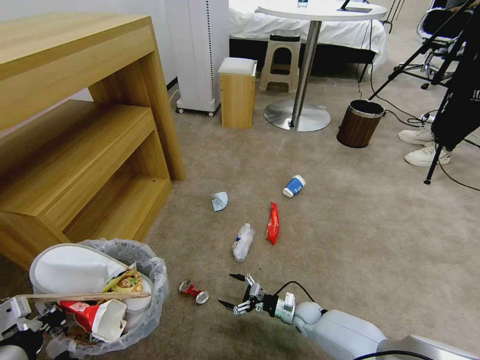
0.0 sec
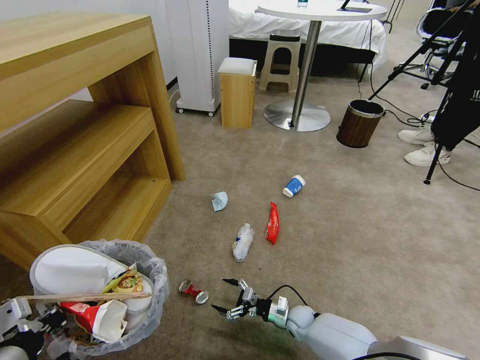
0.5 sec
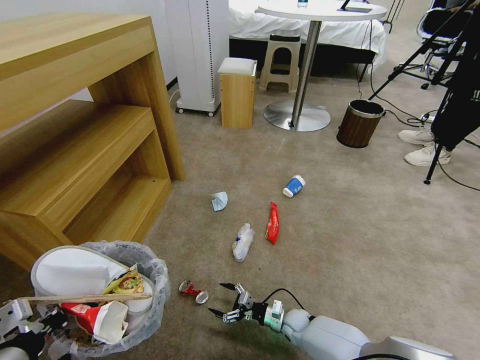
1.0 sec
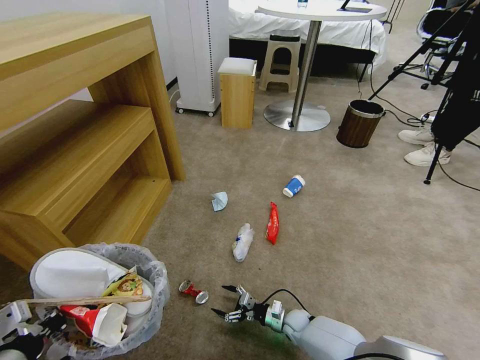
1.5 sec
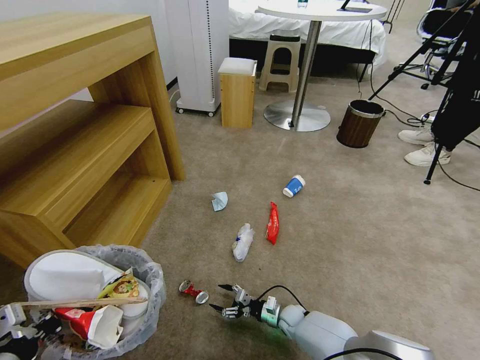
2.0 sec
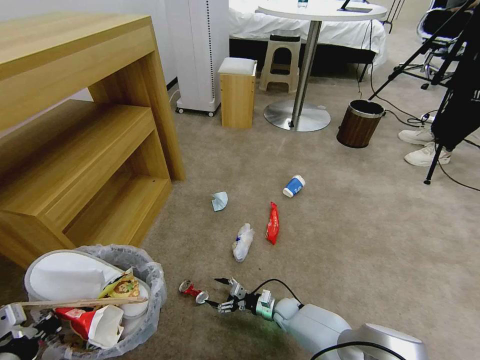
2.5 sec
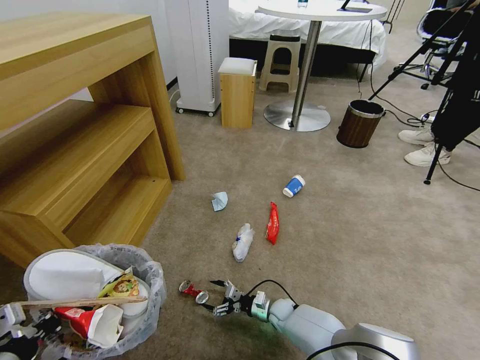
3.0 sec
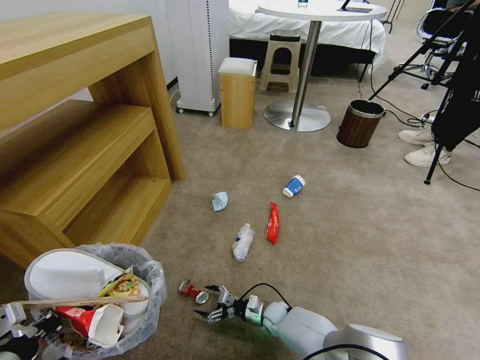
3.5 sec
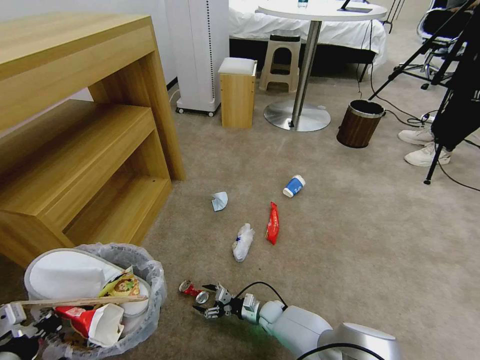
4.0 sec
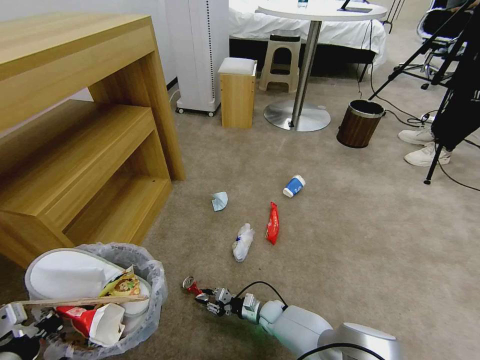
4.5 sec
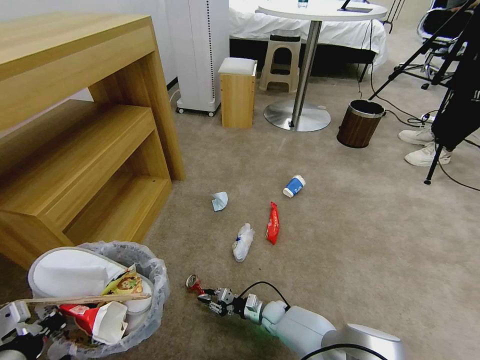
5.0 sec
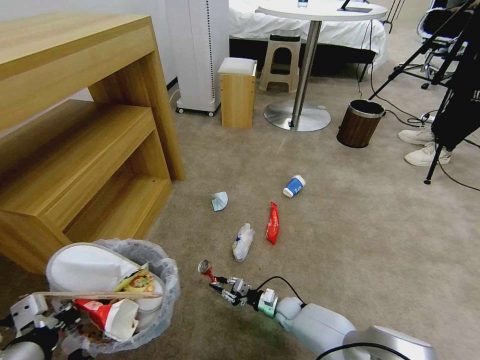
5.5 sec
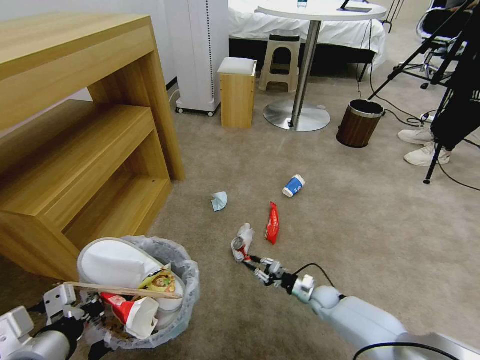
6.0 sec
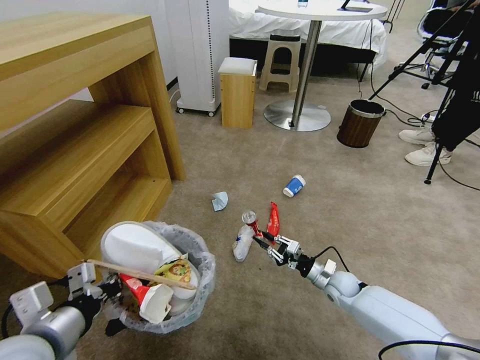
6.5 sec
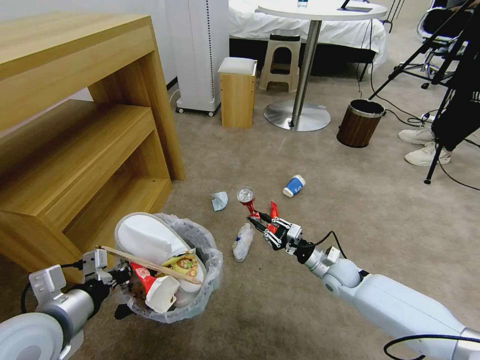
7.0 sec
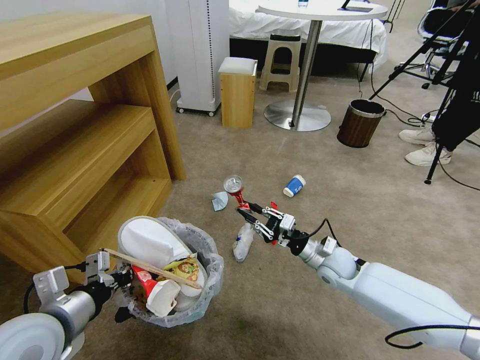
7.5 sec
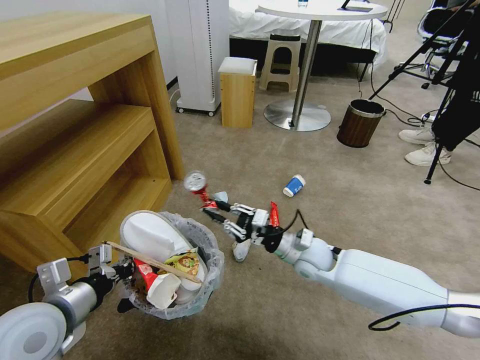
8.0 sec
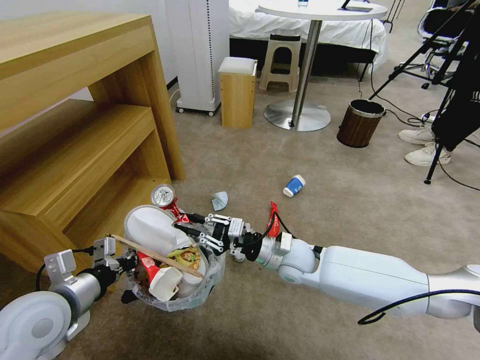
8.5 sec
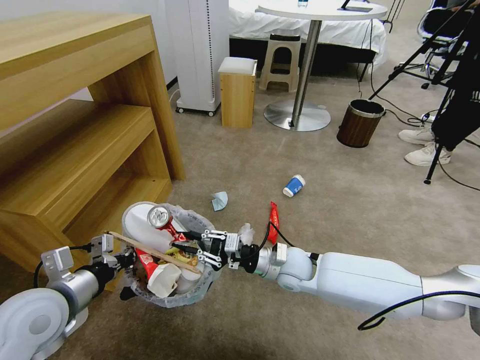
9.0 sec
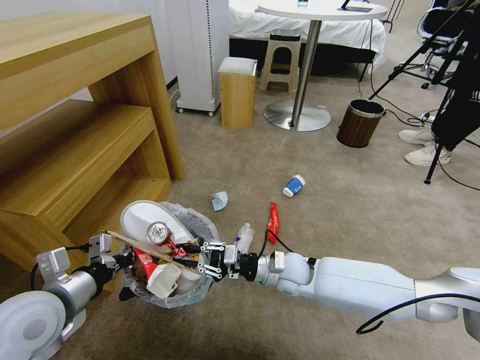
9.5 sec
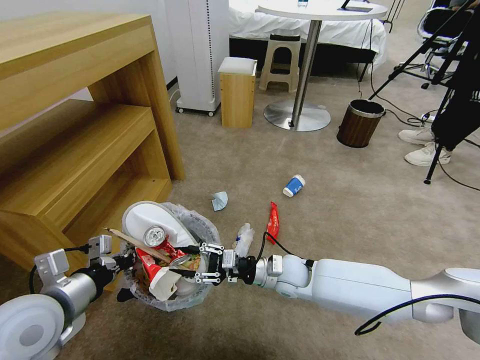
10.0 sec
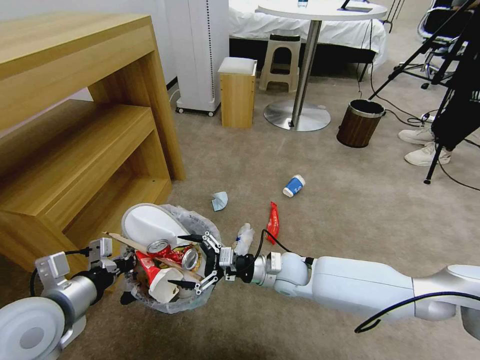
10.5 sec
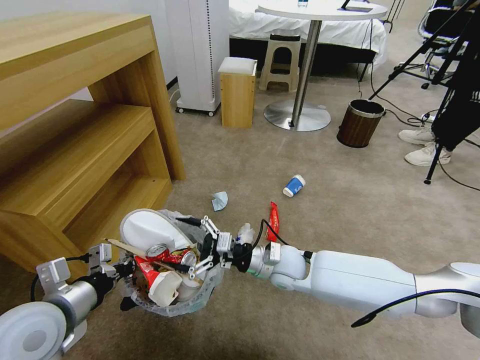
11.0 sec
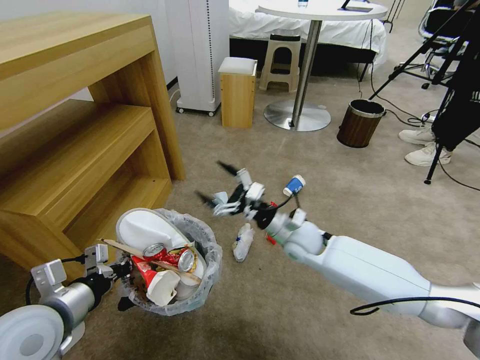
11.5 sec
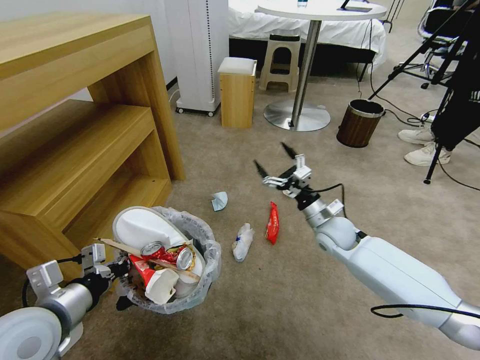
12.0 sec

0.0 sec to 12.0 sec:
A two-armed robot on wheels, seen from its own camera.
Task of the whole recording: Pick up the trash bin and place the garbage on the floor into it.
0.0 sec to 2.0 sec: The right gripper ends up some 5 cm from where it was.
2.0 sec to 4.0 sec: The right gripper is displaced to the left by roughly 5 cm.
4.0 sec to 6.0 sec: The right gripper heads to the right, covering some 15 cm, and closes.
6.0 sec to 8.0 sec: The left gripper moves forward, roughly 10 cm. The right gripper is displaced upward by about 25 cm.
8.0 sec to 10.0 sec: The right gripper shifts by approximately 5 cm.
10.0 sec to 12.0 sec: The right gripper is displaced to the right, forward and upward by some 15 cm, and opens.

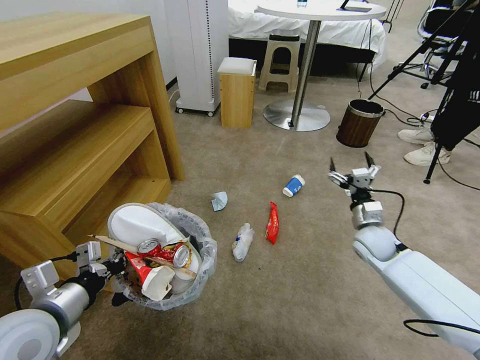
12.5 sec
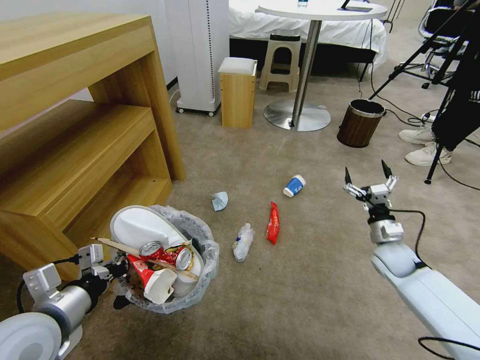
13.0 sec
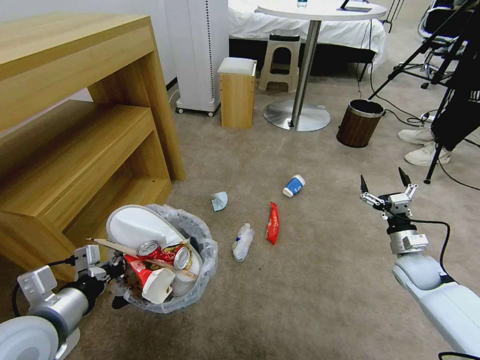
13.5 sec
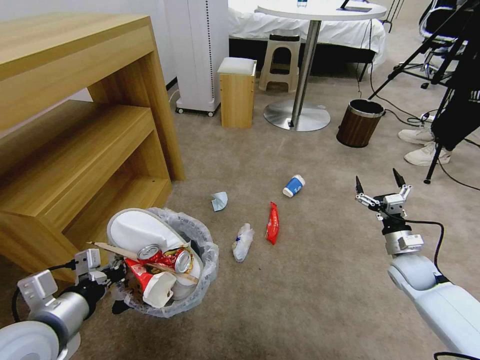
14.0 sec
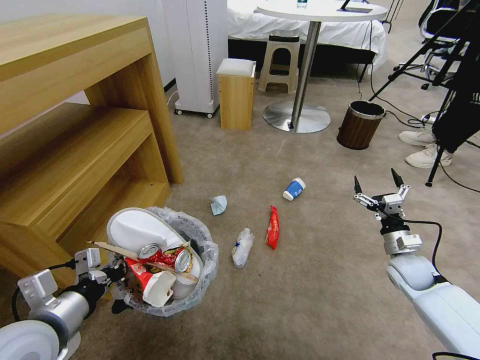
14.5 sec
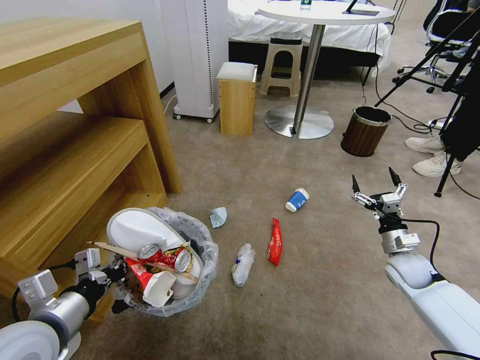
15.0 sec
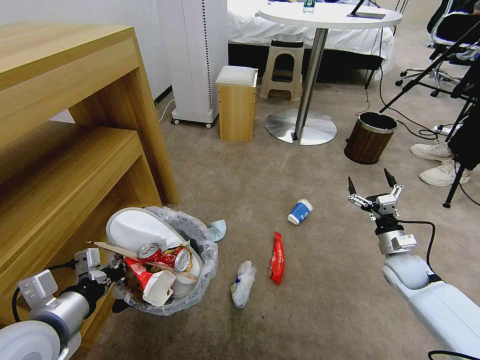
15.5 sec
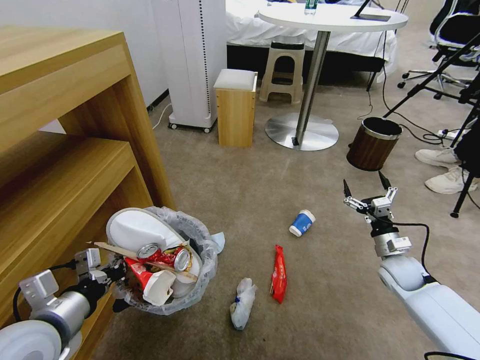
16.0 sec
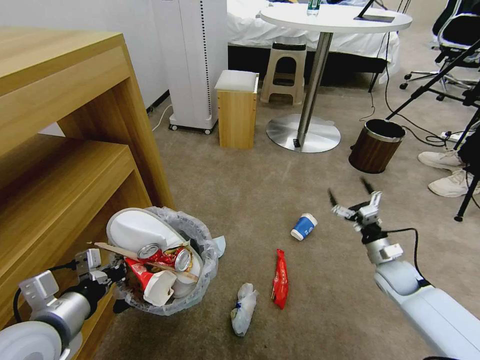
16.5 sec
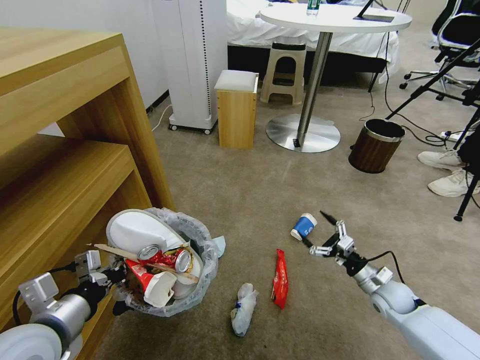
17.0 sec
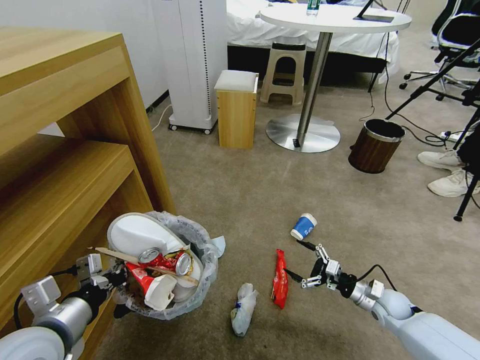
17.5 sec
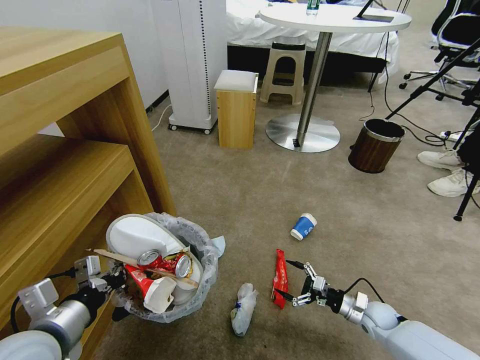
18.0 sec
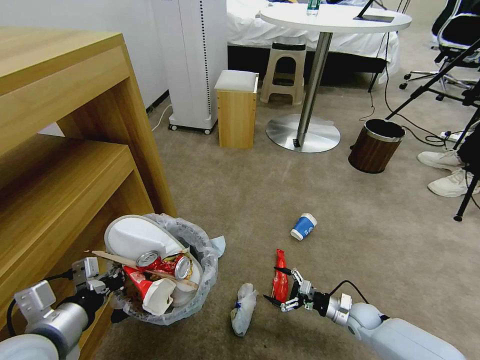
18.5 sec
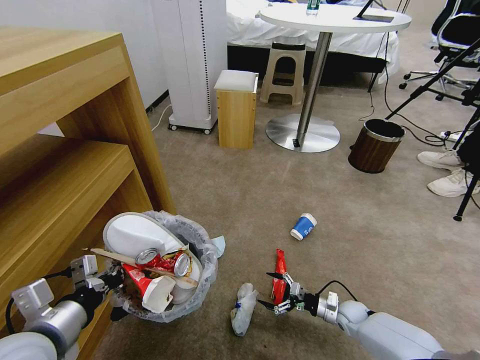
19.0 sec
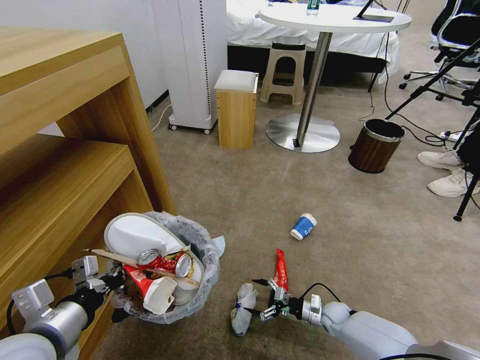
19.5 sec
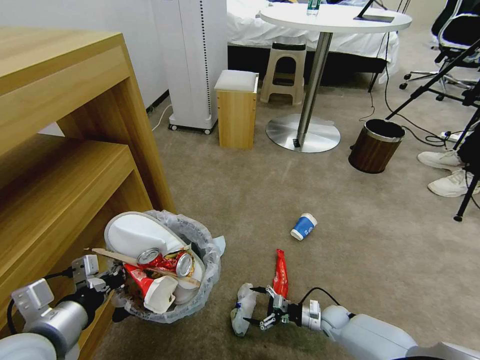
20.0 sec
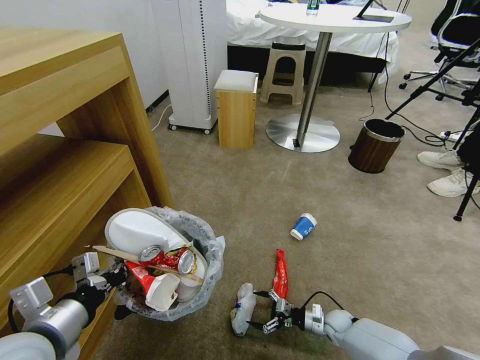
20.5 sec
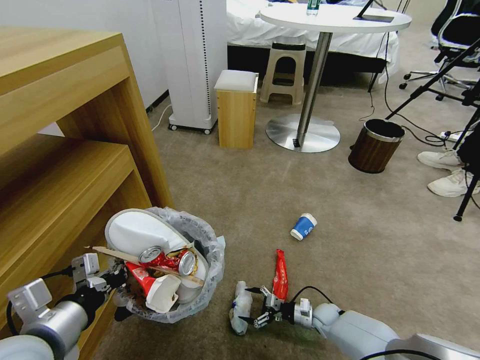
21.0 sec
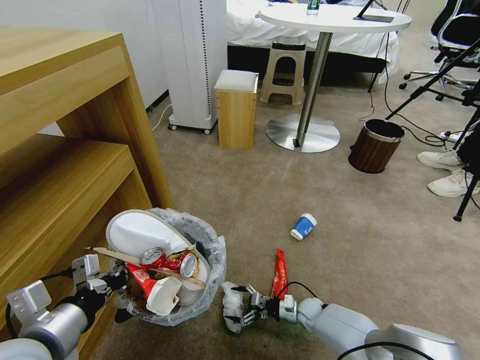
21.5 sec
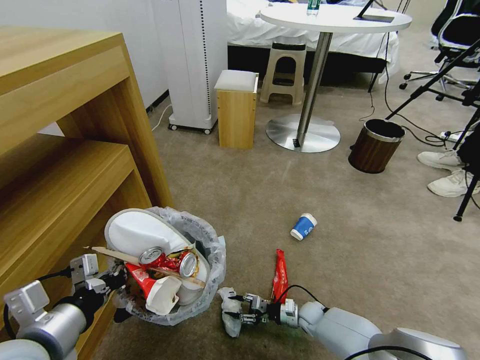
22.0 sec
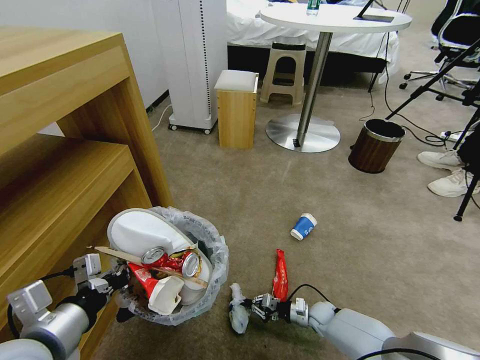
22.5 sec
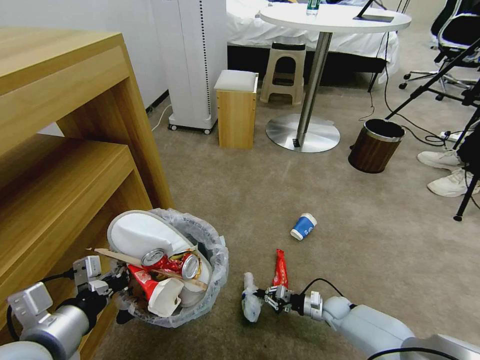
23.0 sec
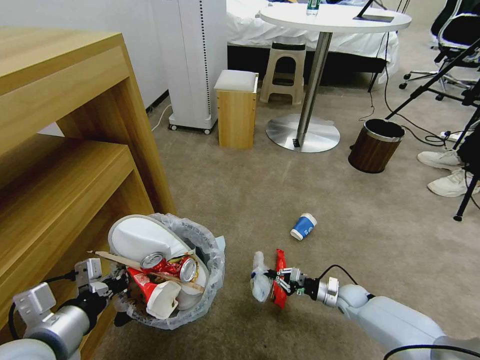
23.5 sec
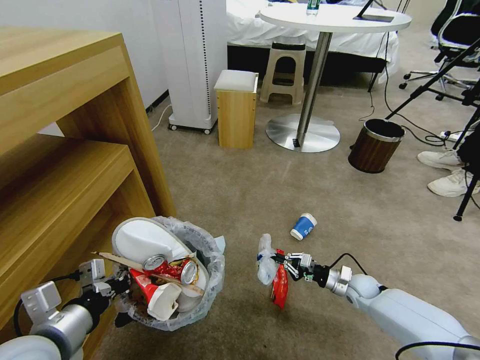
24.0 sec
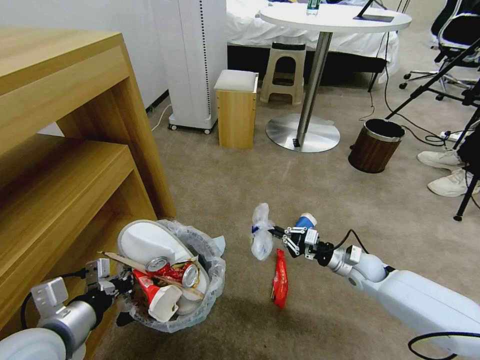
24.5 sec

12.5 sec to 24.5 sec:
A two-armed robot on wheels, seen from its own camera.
Task of the whole recording: Pick up the trash bin and place the garbage on the floor into it.
12.5 sec to 14.5 sec: The right gripper goes about 10 cm to the right and backward.
16.5 sec to 18.5 sec: The right gripper travels downward by some 15 cm.
18.5 sec to 20.5 sec: The right gripper heads downward, covering roughly 5 cm.
20.5 sec to 22.5 sec: The right gripper closes up.
22.5 sec to 24.5 sec: The right gripper goes approximately 20 cm upward.

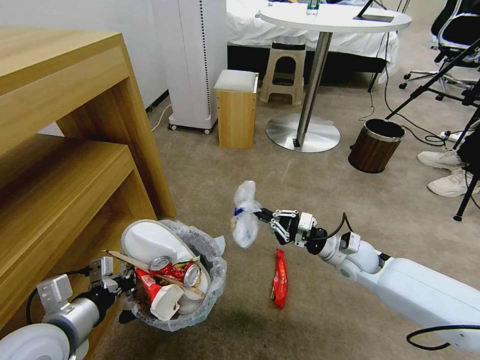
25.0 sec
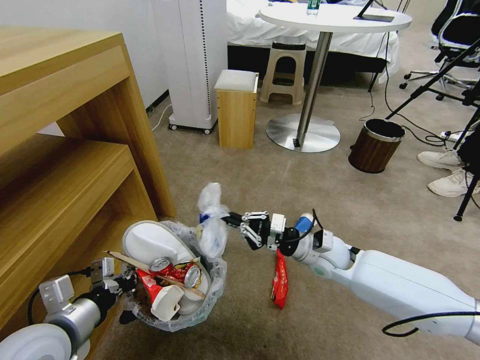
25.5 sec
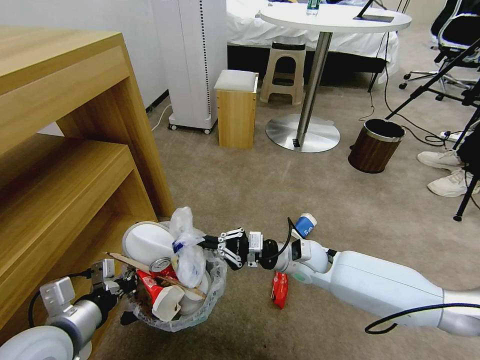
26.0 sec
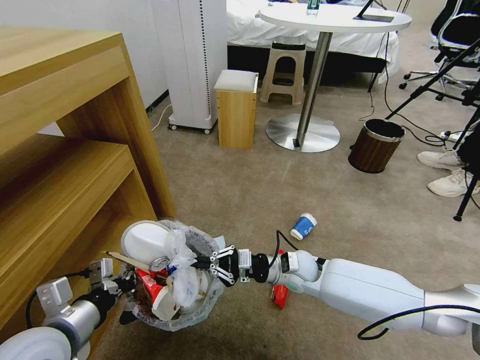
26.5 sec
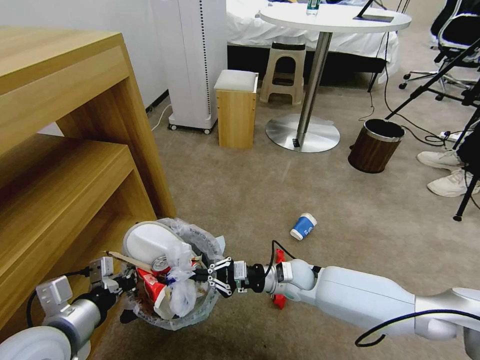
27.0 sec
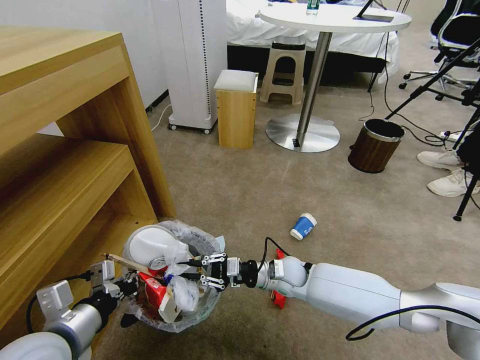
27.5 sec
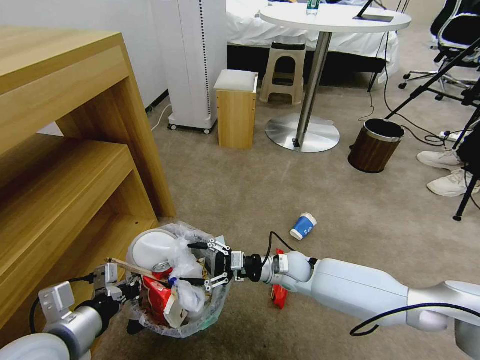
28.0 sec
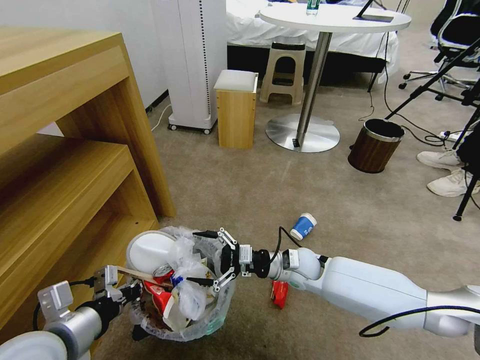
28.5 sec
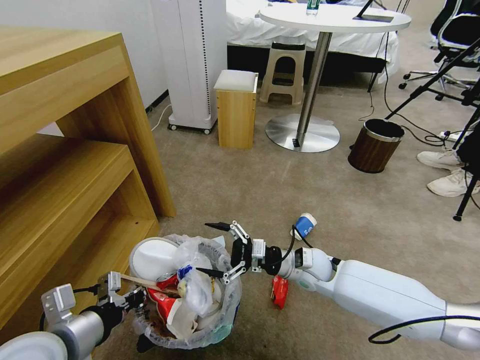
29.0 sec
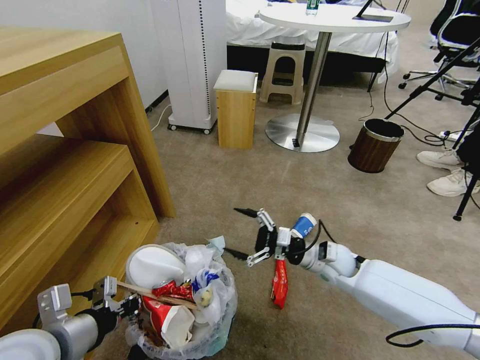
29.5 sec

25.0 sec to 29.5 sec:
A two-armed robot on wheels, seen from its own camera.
Task of the whole recording: Pick up the trash bin and place the garbage on the floor into it.
25.0 sec to 27.0 sec: The right gripper travels to the left and downward by approximately 15 cm.
27.0 sec to 29.5 sec: The right gripper moves to the right, about 10 cm, and opens up.
